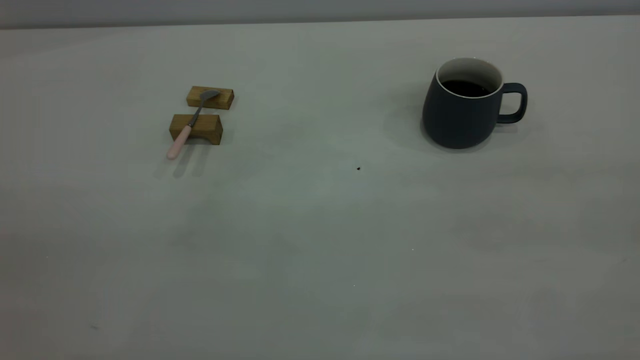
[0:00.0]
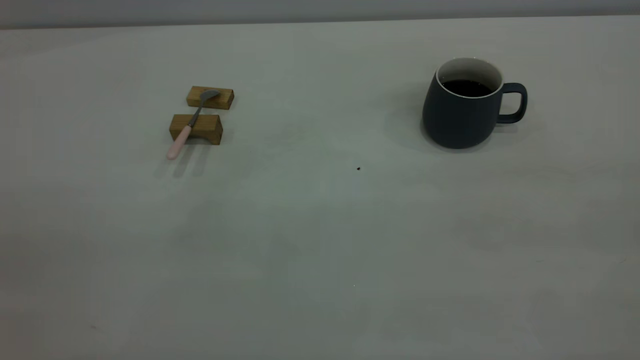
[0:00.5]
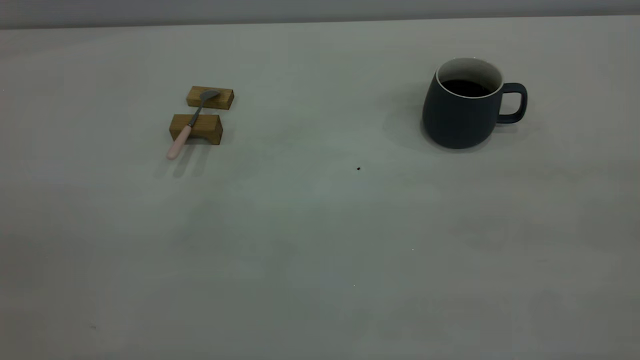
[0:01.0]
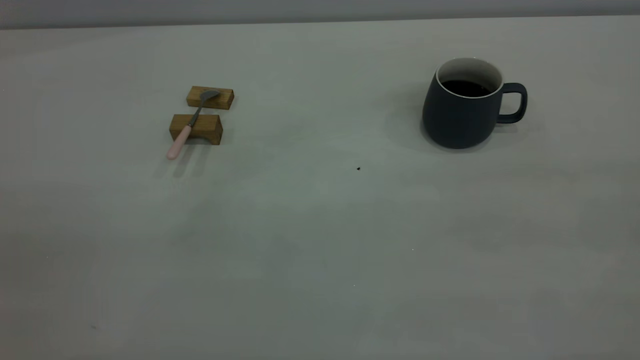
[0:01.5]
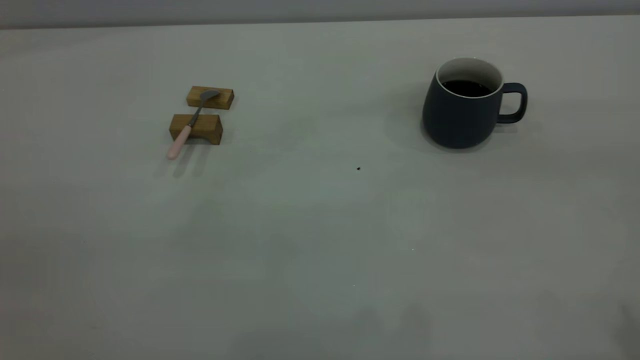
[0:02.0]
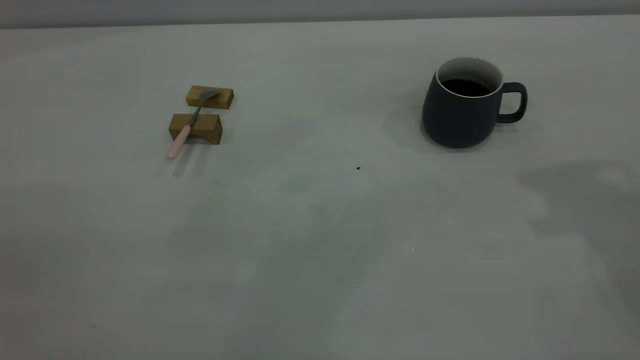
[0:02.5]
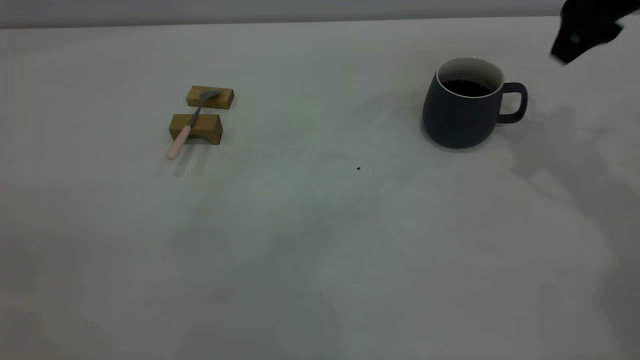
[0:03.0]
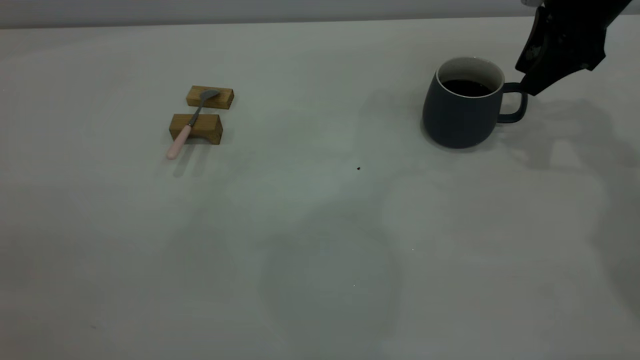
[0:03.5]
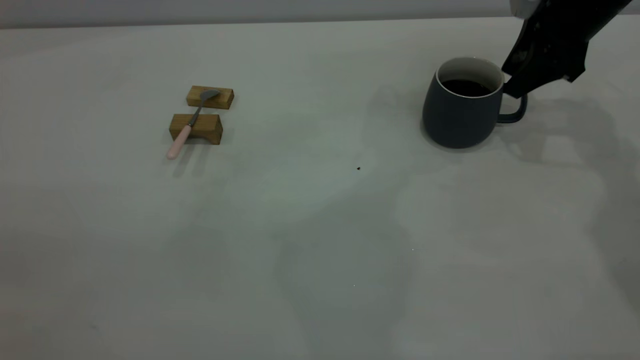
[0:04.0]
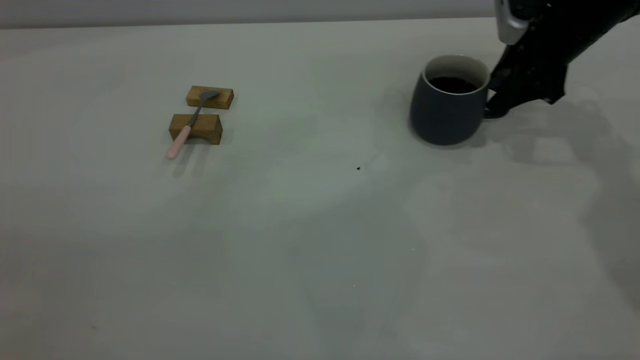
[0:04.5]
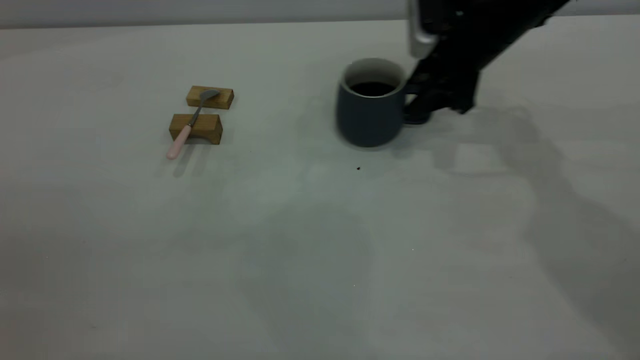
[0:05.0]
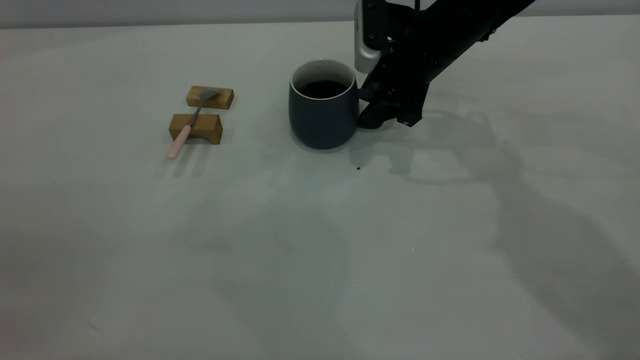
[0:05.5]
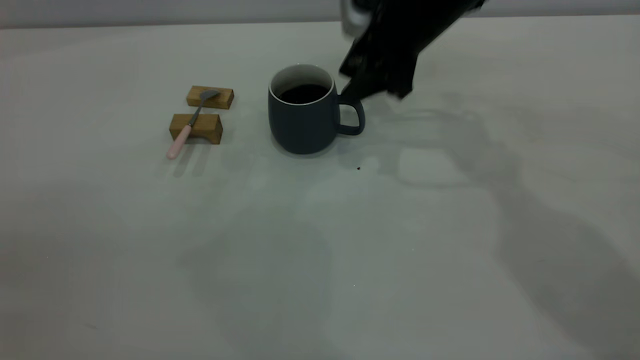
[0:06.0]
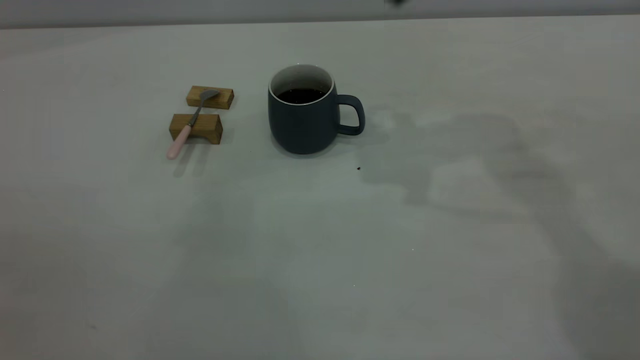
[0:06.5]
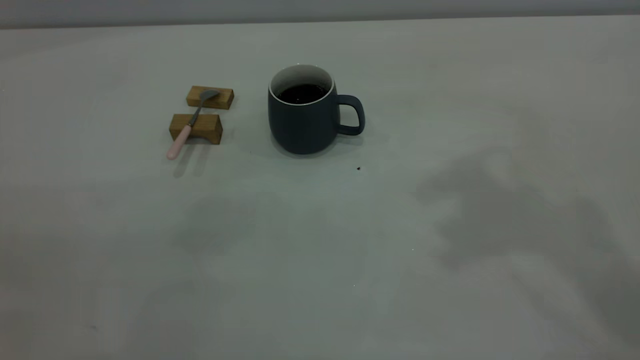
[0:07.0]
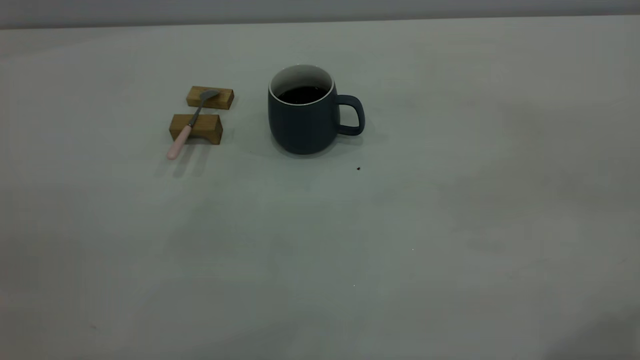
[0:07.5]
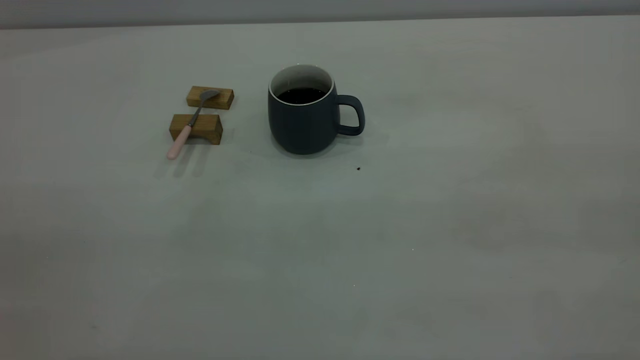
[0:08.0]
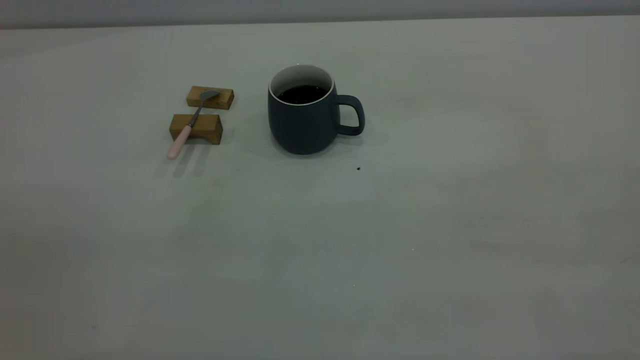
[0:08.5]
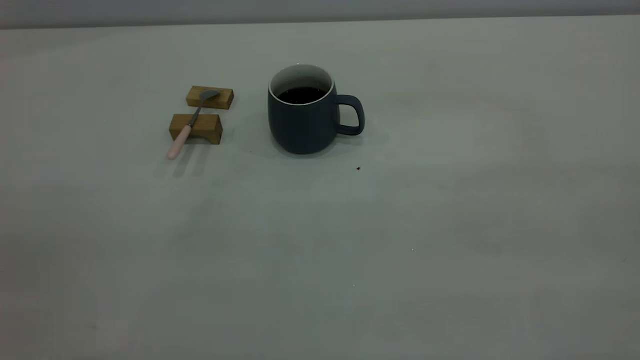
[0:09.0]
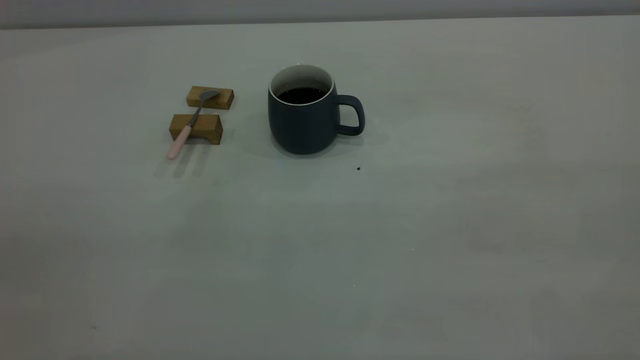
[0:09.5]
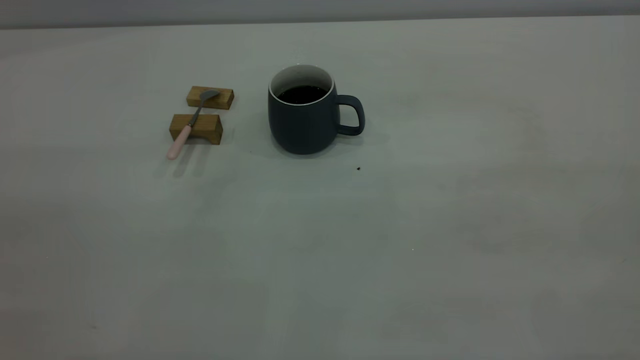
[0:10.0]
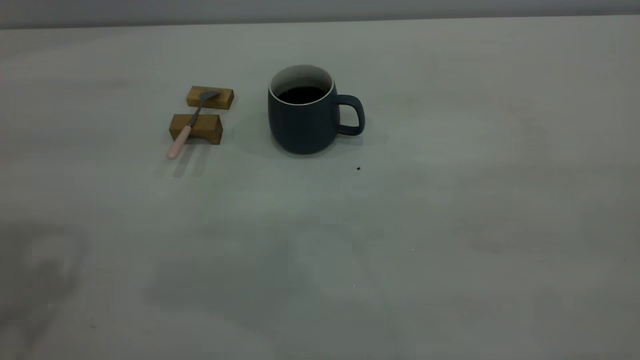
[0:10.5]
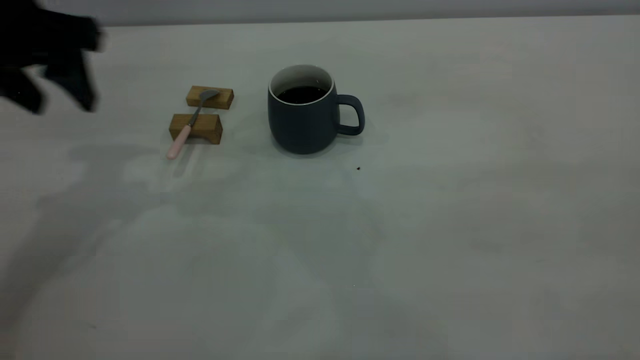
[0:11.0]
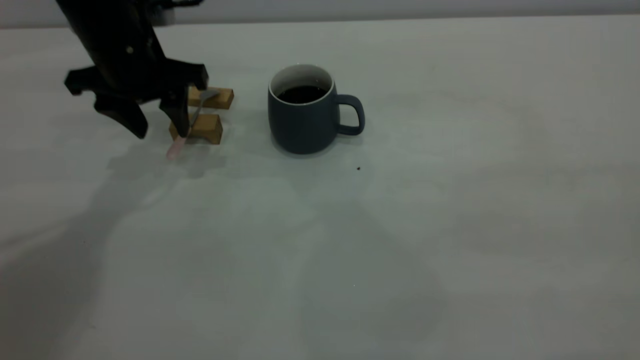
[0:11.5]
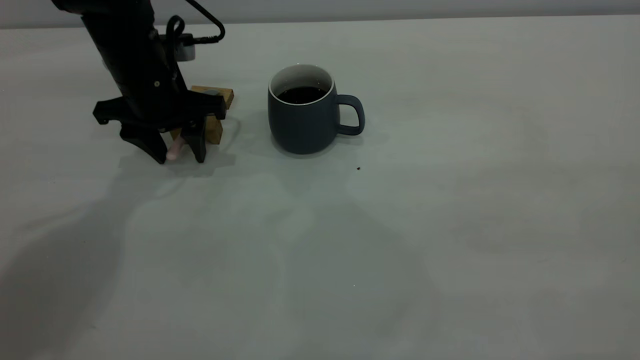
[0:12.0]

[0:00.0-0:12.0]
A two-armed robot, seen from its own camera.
Step, 0:00.0 to 0:06.0: Move the cup with coffee to the center of view.
0:02.0 to 0:04.0: The right gripper goes some 40 cm forward and downward.
0:04.0 to 0:06.0: The right gripper goes about 15 cm to the left.
0:06.0 to 0:08.0: The right gripper shifts approximately 50 cm backward and upward.
0:10.0 to 0:12.0: The left gripper travels forward and downward by approximately 50 cm.

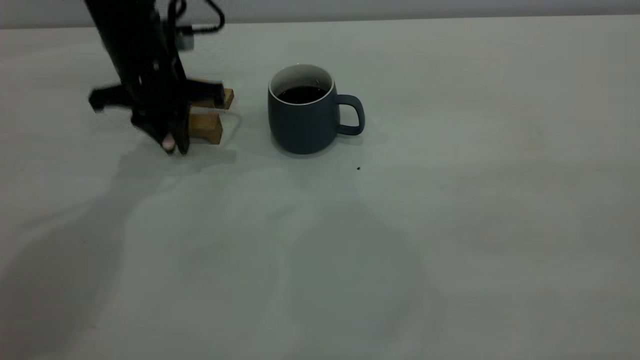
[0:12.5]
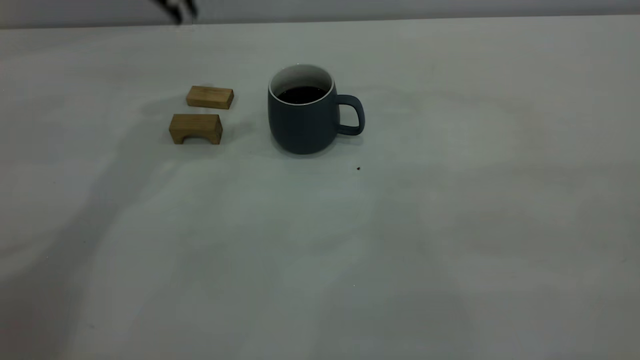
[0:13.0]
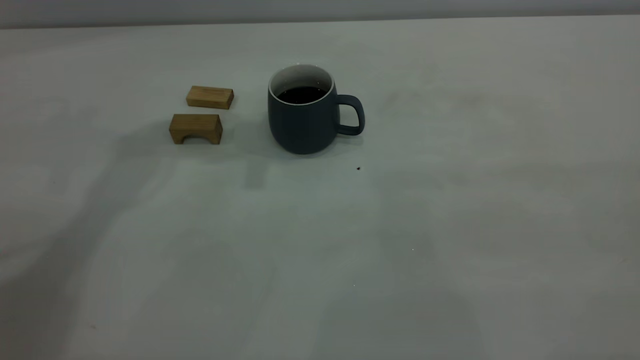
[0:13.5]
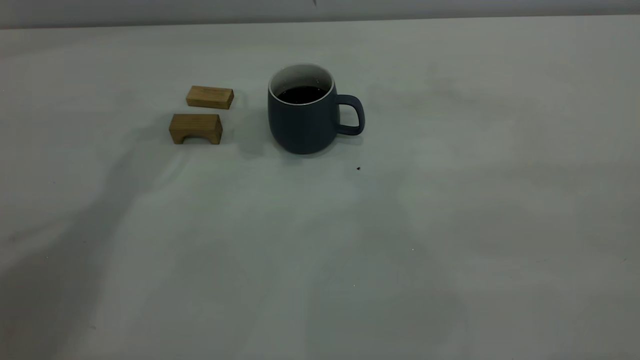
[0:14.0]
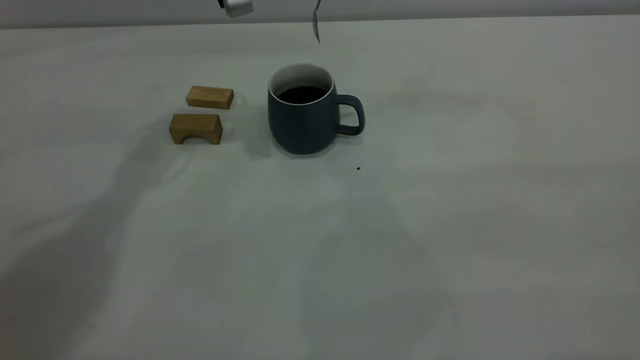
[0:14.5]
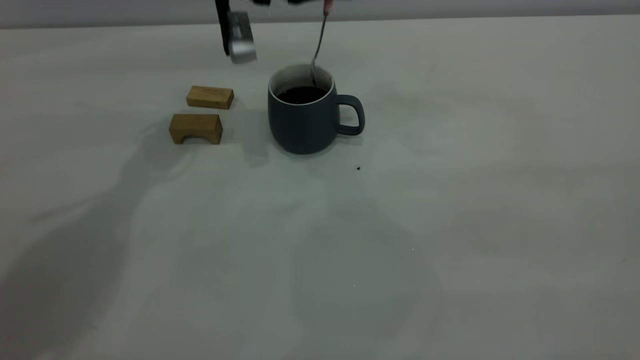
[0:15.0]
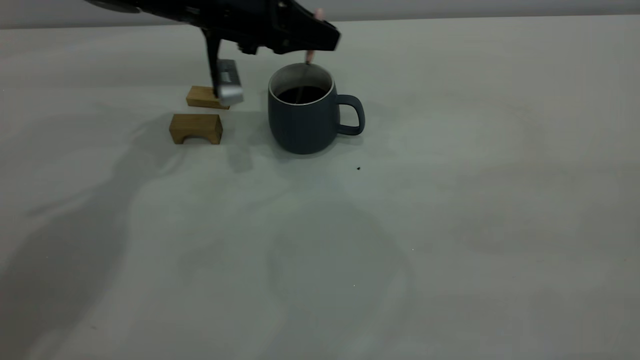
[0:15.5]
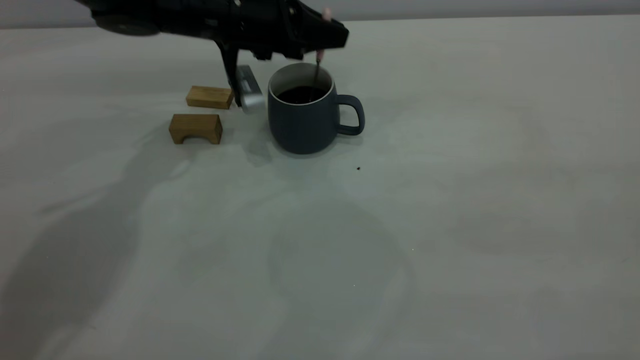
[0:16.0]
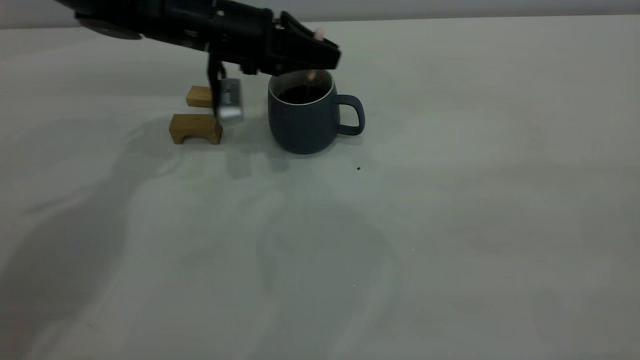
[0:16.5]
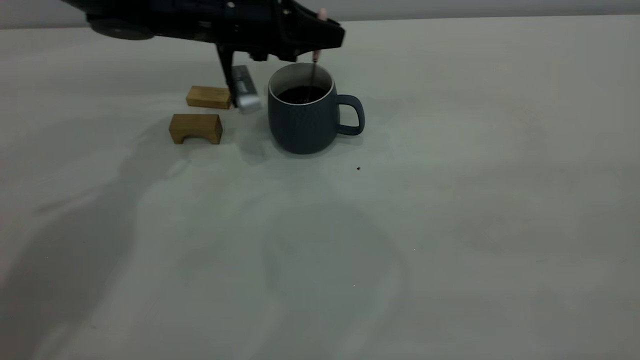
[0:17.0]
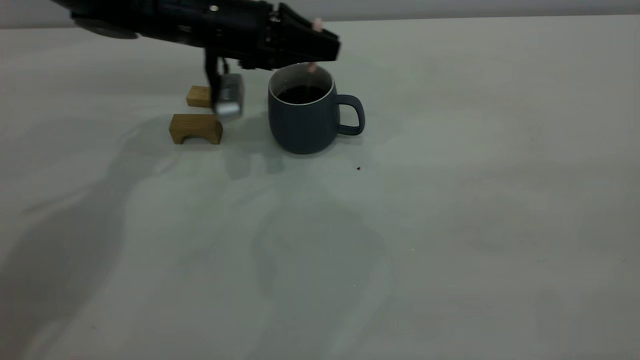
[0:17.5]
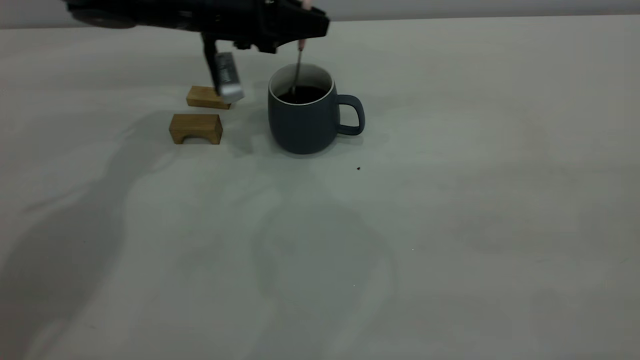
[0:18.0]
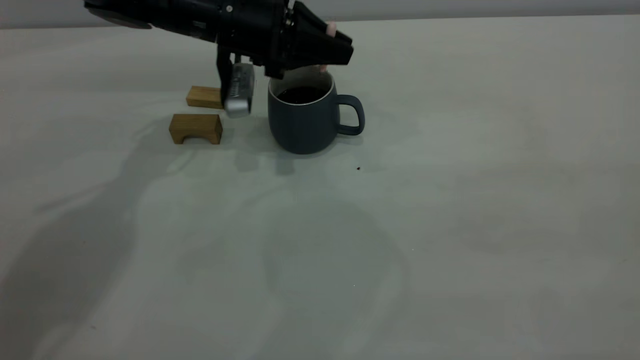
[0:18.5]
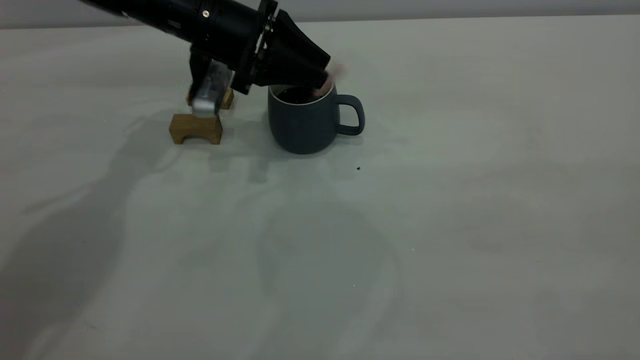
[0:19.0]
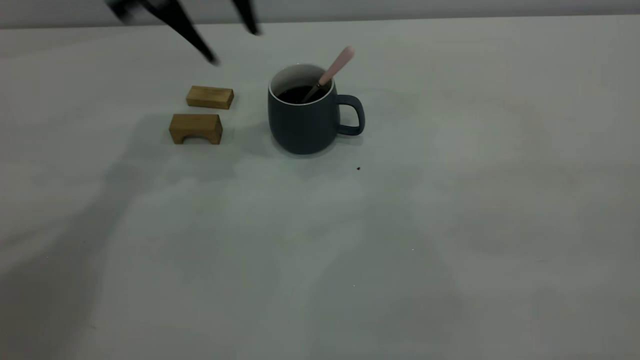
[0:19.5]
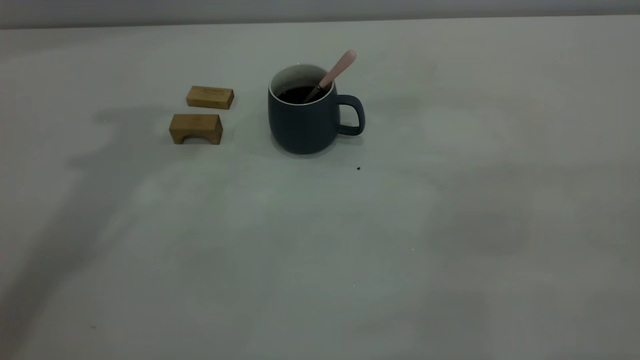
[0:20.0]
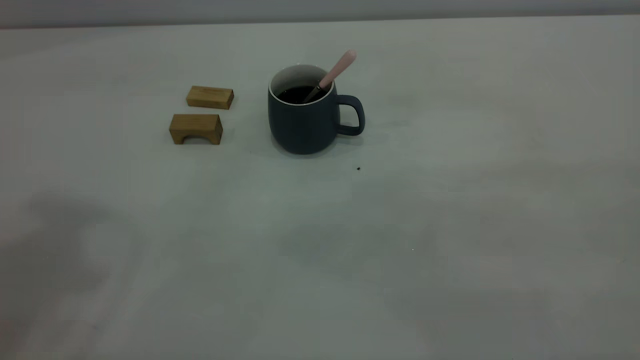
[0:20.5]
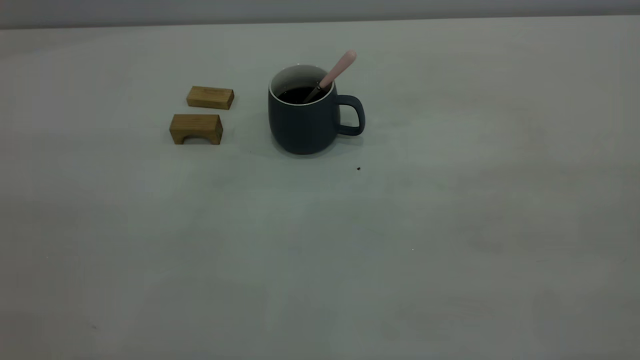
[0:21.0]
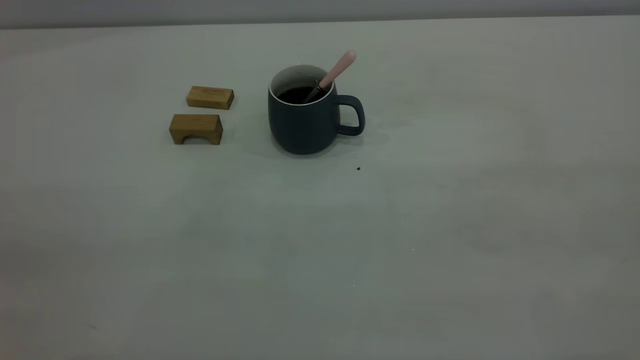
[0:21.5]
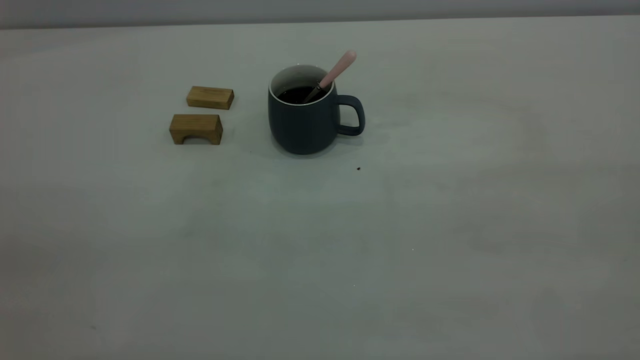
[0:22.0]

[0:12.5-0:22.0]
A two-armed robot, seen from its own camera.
Step, 0:13.0 to 0:19.0: Stir the coffee in the cup.
0:12.5 to 0:14.5: The left gripper travels upward and to the right by approximately 15 cm.
0:14.5 to 0:16.5: The left gripper shifts approximately 15 cm downward.
0:16.5 to 0:18.0: There are only small adjustments of the grippers.
0:18.0 to 0:20.0: The left gripper is displaced upward by about 30 cm, and opens up.
